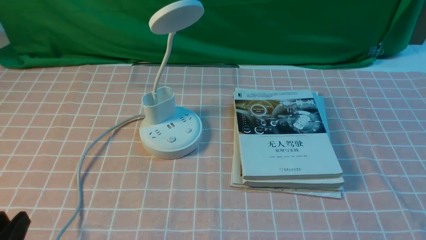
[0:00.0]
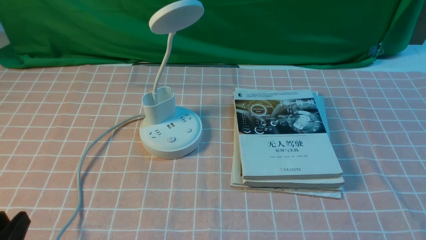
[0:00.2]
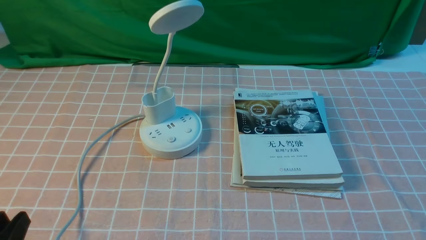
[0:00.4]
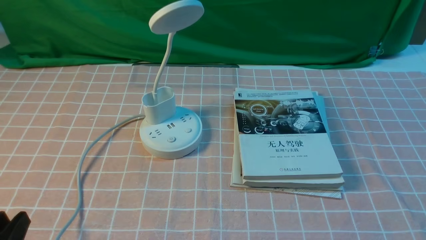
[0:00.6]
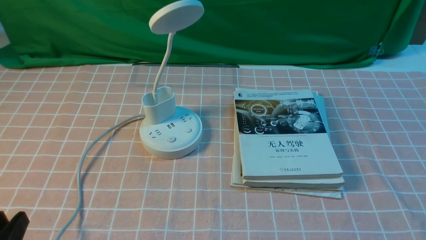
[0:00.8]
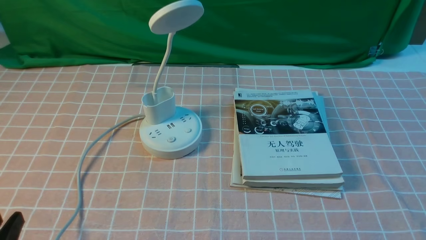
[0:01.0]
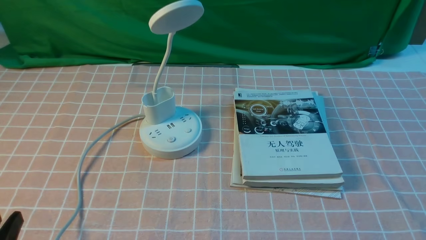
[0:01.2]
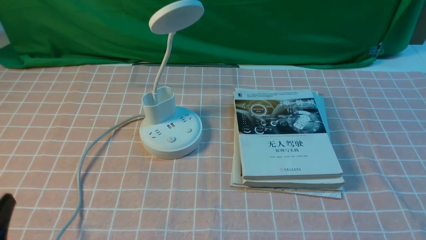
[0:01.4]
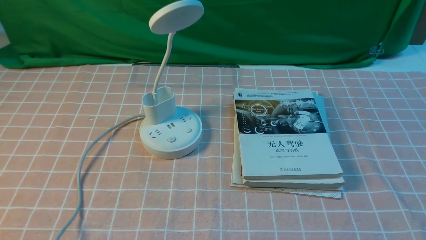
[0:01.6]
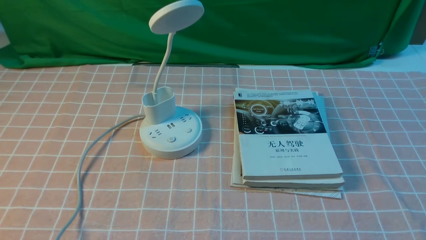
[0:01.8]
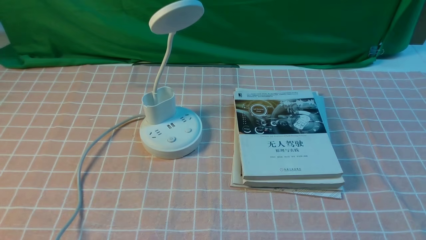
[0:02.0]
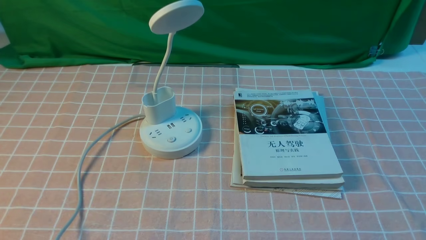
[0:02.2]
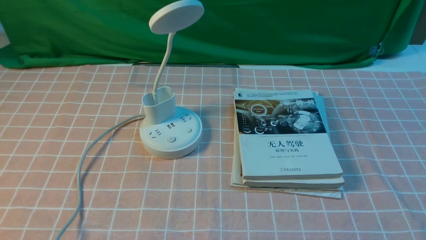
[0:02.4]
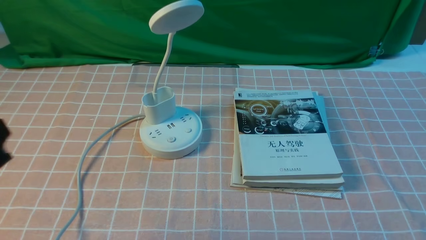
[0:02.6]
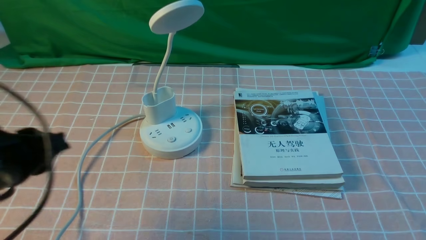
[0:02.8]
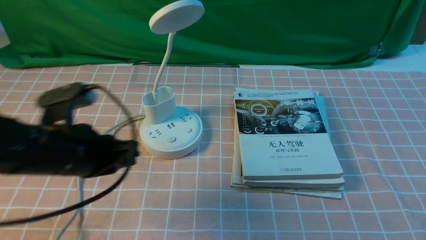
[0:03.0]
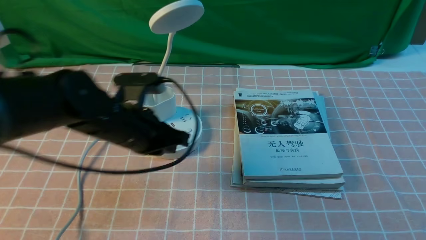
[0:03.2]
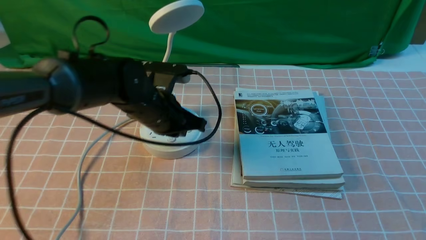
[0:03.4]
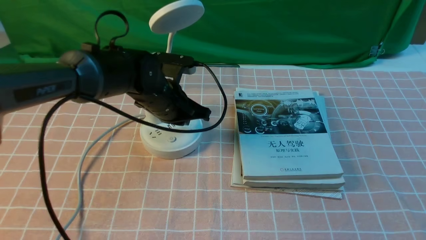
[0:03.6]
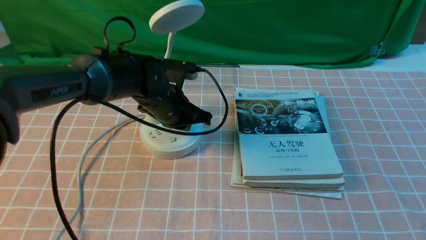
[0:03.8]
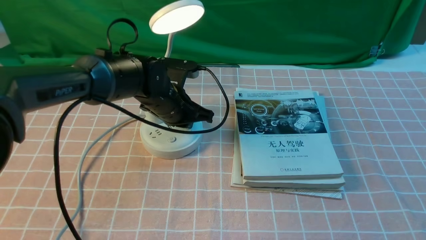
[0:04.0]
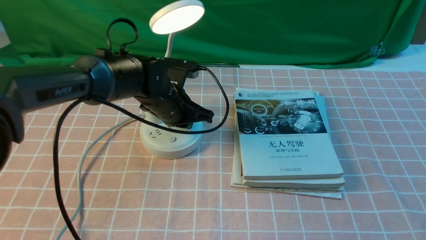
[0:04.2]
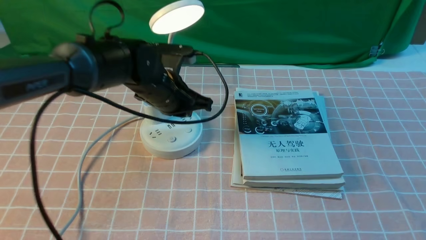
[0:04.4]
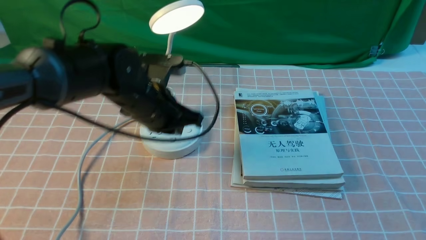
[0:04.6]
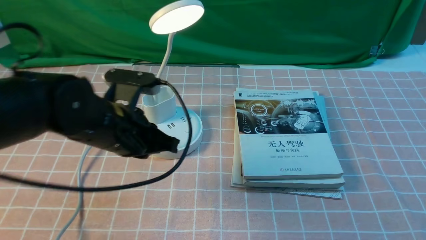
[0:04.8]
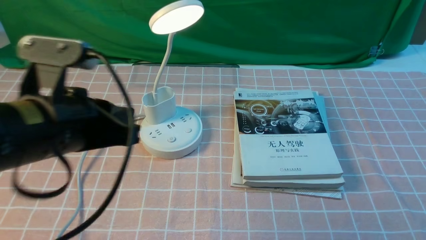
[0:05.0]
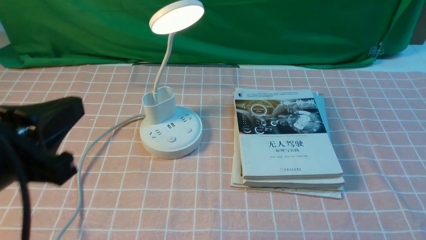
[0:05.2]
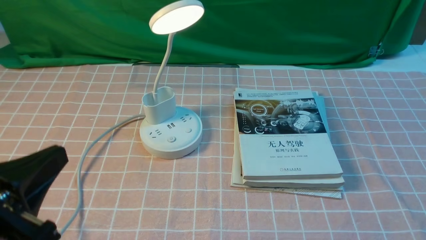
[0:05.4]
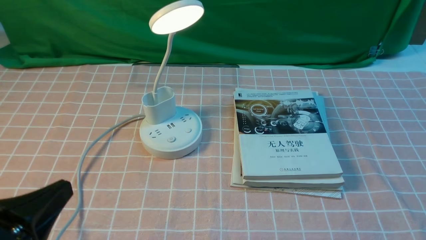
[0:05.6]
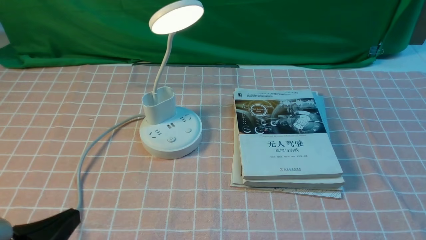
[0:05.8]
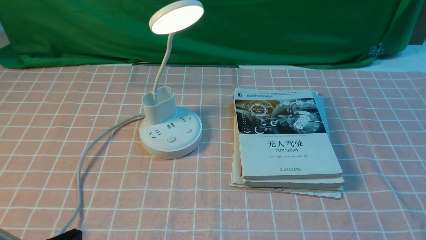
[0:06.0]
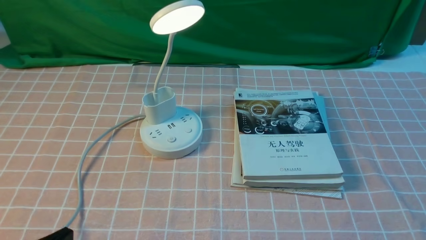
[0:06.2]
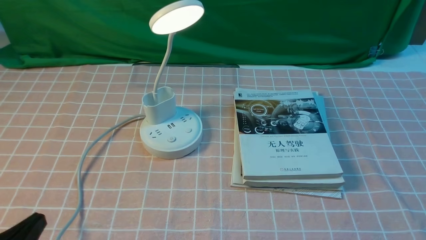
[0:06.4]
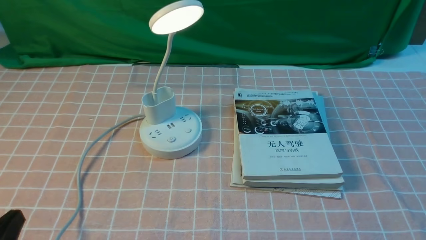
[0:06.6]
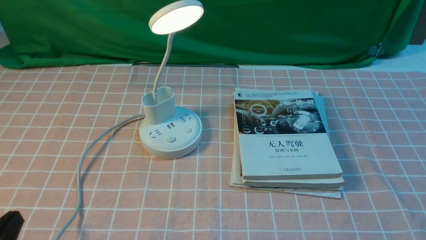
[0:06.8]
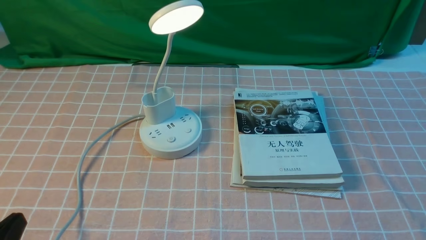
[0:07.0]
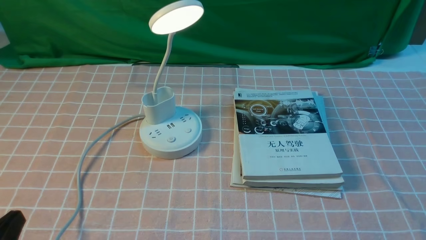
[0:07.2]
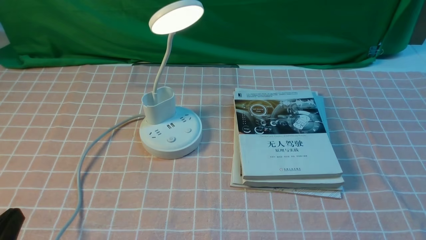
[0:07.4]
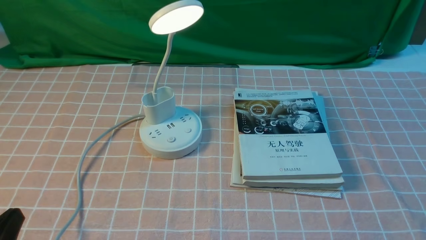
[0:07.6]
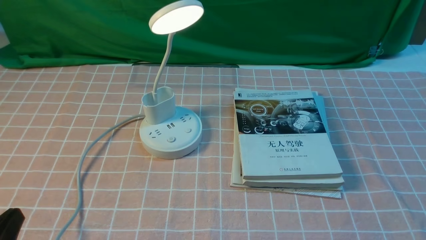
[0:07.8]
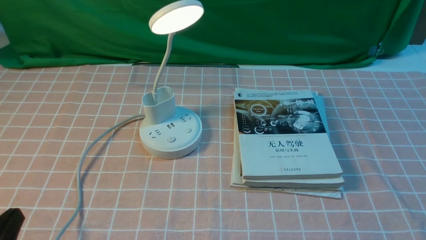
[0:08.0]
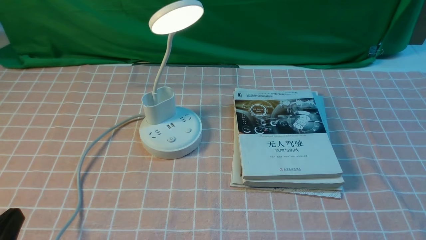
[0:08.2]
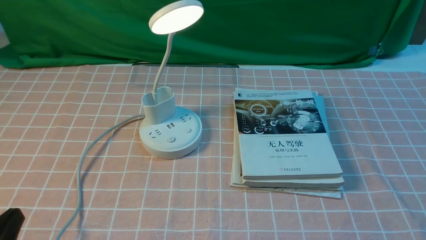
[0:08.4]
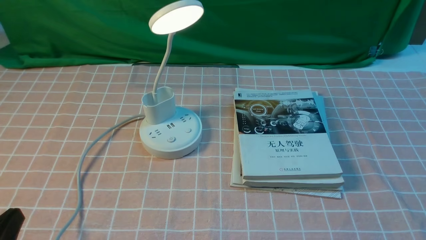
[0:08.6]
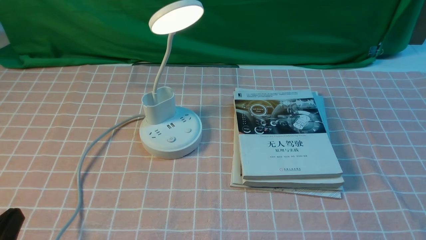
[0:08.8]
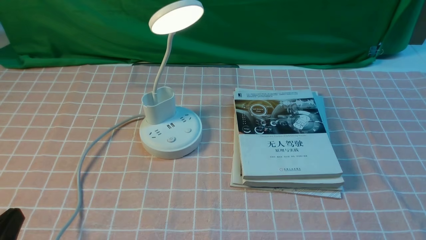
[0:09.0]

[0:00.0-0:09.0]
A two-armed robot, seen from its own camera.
Step, 0:00.0 to 0:04.2: use the left arm to press the button switch on the lamp holder.
0:01.6 to 0:03.0: The left gripper moves forward and to the right, roughly 20 cm, and closes.
0:03.0 to 0:04.4: The left gripper goes roughly 15 cm forward and to the right.
0:04.4 to 0:06.0: The left gripper travels backward and to the left by approximately 35 cm.
0:07.6 to 0:09.0: Both grippers stay about where they are.
